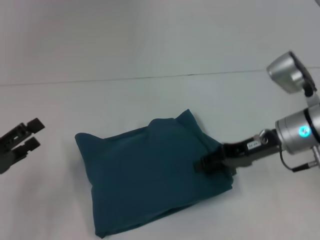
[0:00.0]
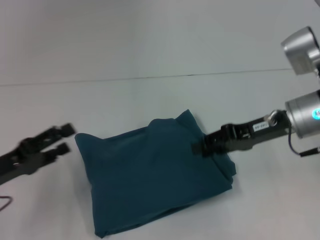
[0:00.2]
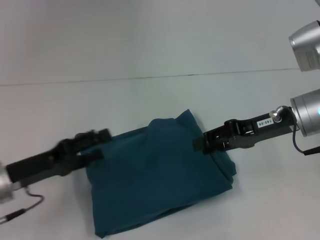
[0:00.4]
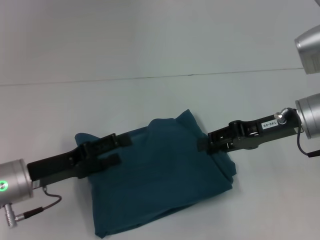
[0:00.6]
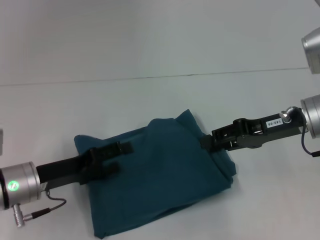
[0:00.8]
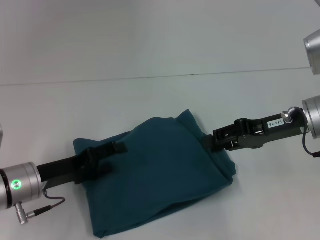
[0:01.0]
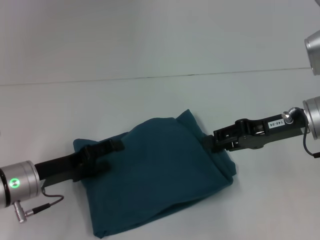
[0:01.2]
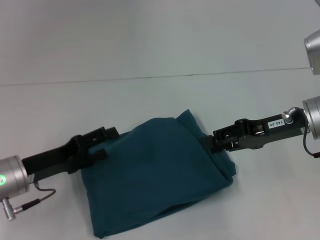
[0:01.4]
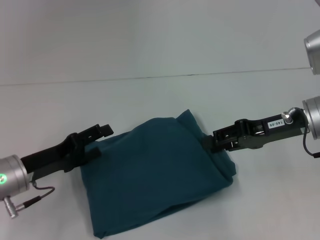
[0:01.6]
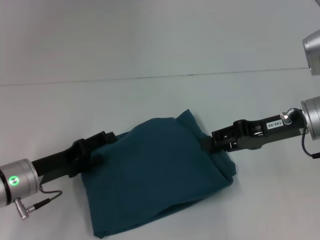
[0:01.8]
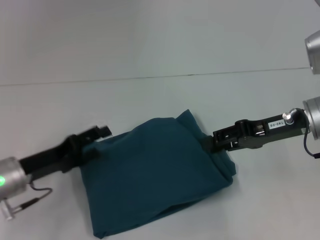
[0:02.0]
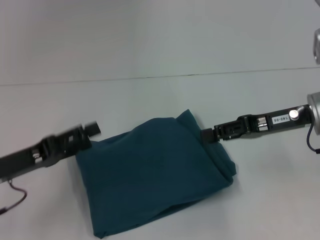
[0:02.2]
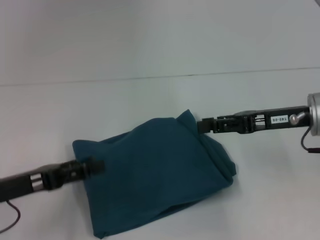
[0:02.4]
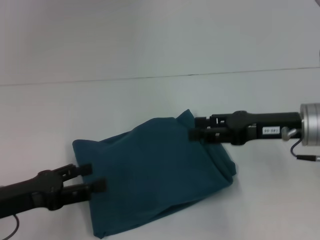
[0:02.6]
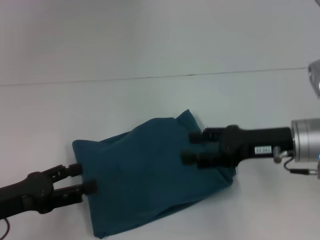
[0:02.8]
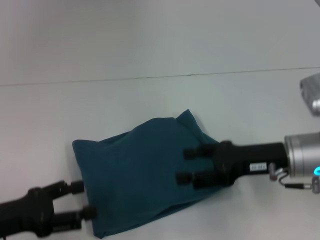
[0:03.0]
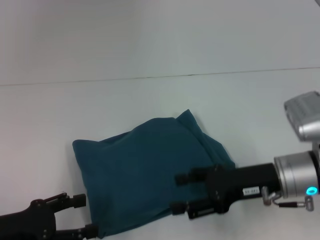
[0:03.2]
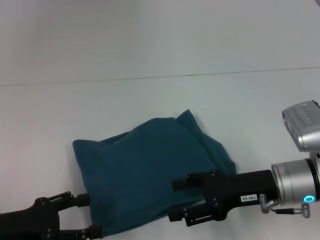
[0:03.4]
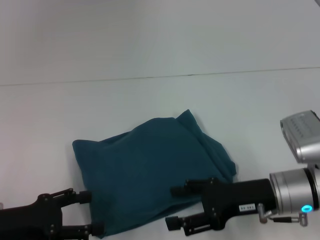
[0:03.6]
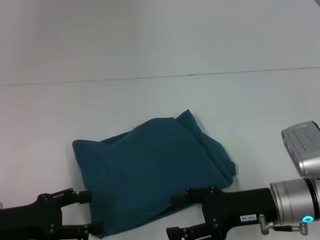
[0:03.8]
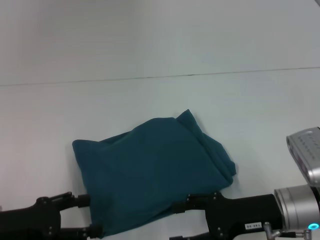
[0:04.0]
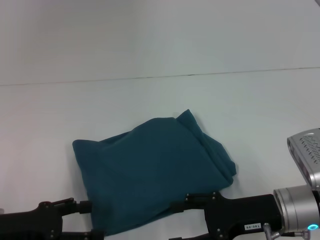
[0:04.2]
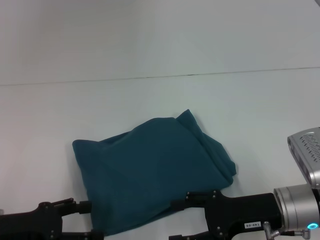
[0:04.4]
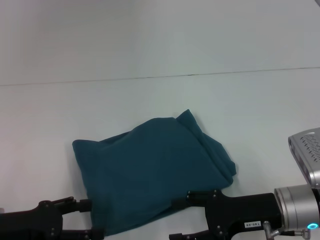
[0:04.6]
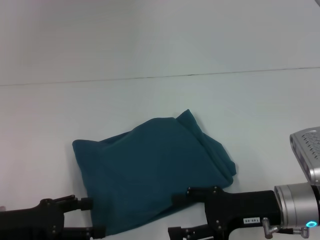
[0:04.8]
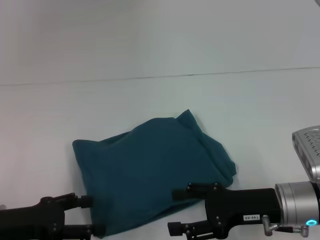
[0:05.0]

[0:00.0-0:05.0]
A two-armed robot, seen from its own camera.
0.0 to 1.6 s: The left gripper shifts approximately 10 cm to the right and forward.
1.6 to 3.4 s: The left gripper goes approximately 10 cm backward; the right gripper travels downward and backward by approximately 10 cm, and opens.
3.4 to 5.0 s: The grippers stay close to where they were, moving slightly.

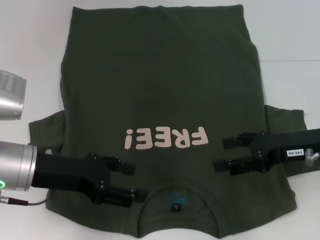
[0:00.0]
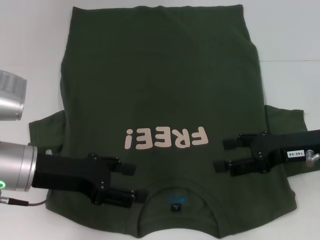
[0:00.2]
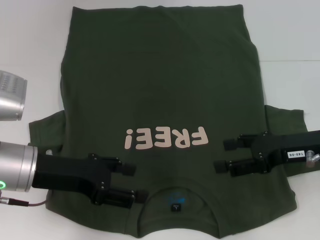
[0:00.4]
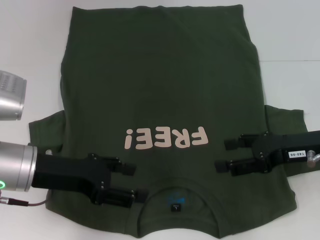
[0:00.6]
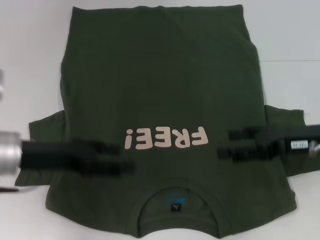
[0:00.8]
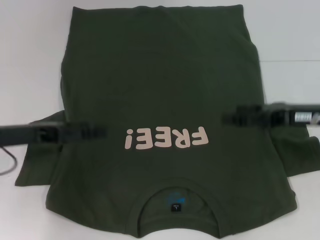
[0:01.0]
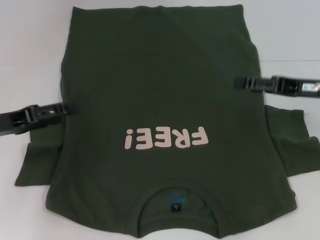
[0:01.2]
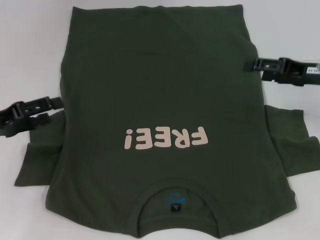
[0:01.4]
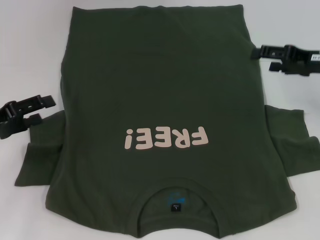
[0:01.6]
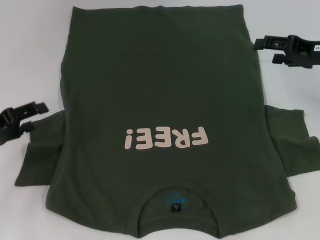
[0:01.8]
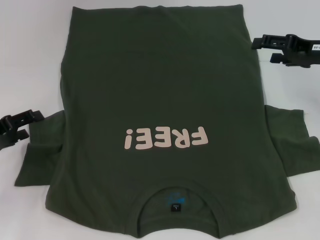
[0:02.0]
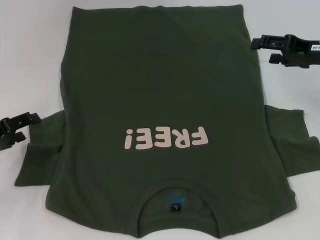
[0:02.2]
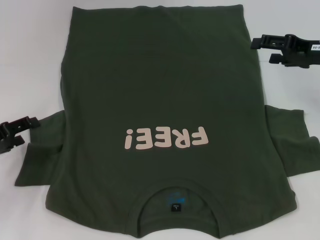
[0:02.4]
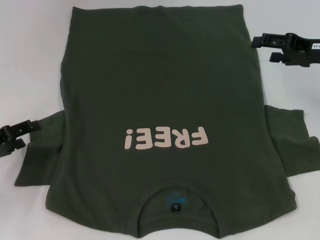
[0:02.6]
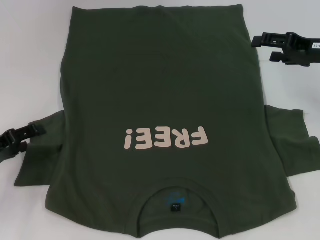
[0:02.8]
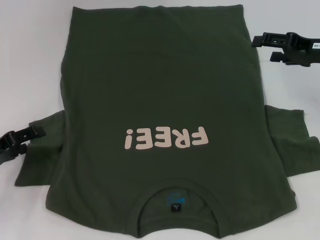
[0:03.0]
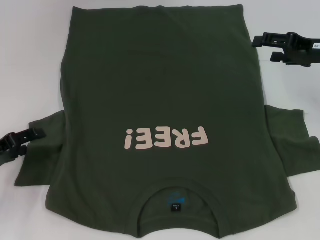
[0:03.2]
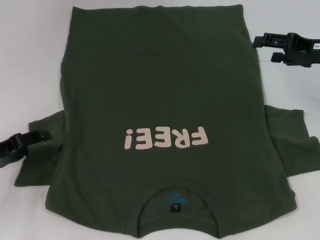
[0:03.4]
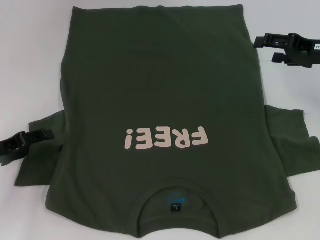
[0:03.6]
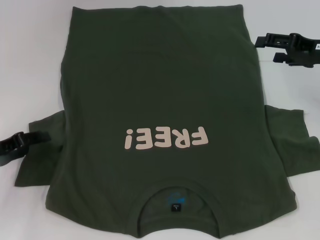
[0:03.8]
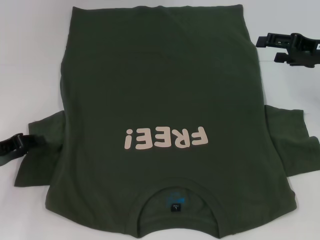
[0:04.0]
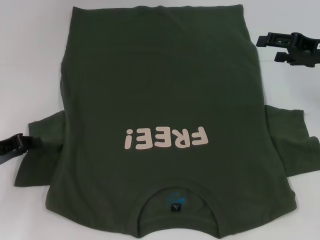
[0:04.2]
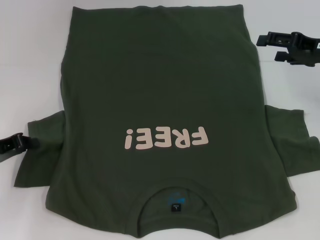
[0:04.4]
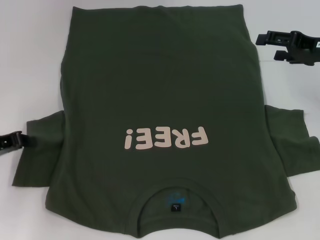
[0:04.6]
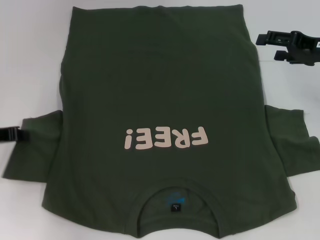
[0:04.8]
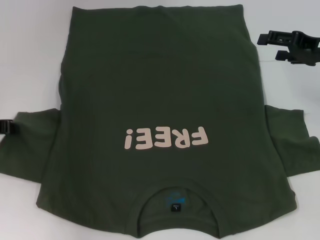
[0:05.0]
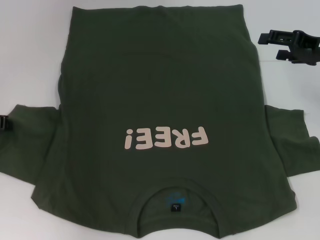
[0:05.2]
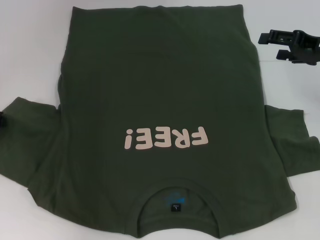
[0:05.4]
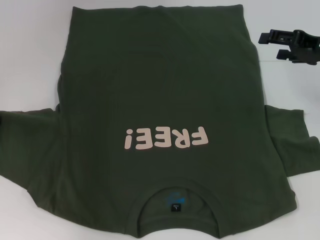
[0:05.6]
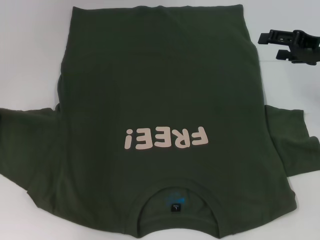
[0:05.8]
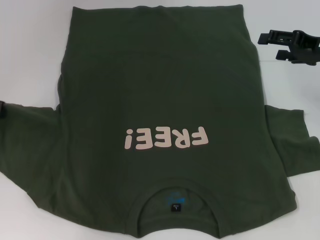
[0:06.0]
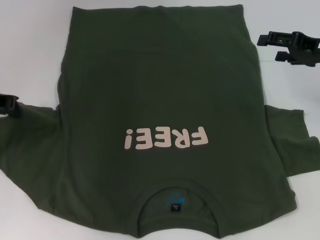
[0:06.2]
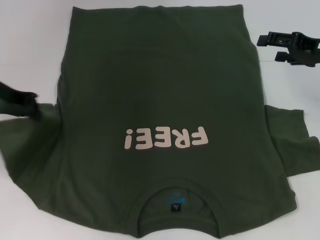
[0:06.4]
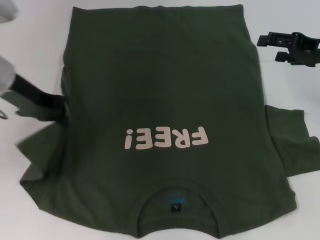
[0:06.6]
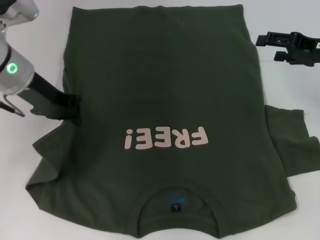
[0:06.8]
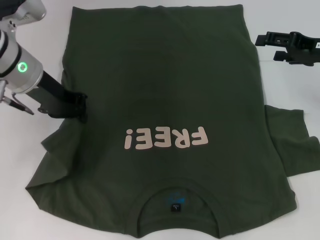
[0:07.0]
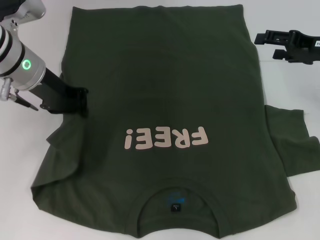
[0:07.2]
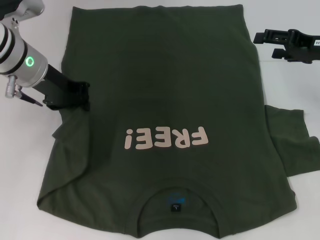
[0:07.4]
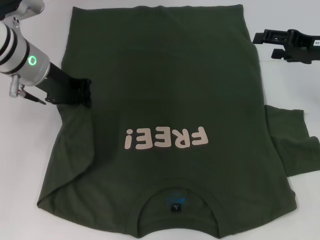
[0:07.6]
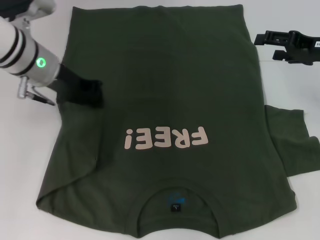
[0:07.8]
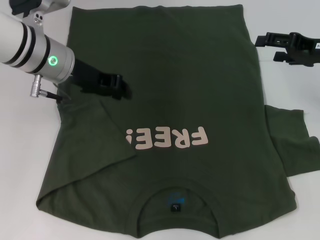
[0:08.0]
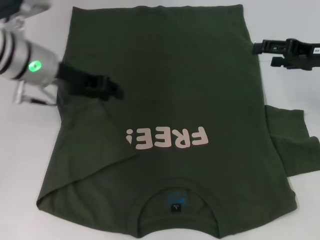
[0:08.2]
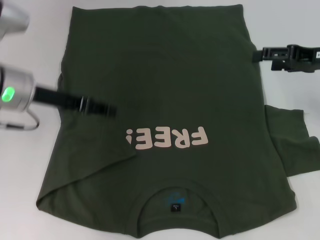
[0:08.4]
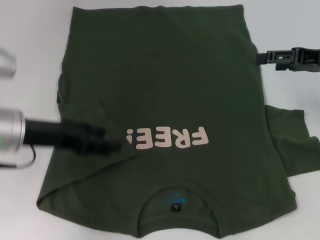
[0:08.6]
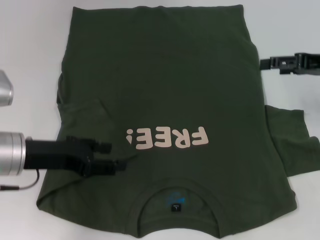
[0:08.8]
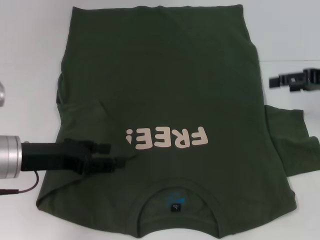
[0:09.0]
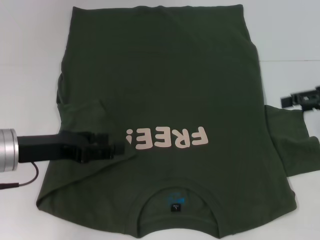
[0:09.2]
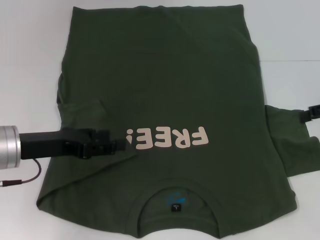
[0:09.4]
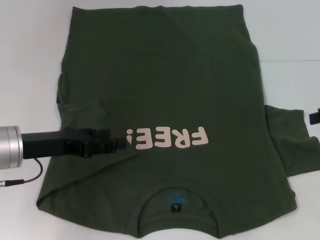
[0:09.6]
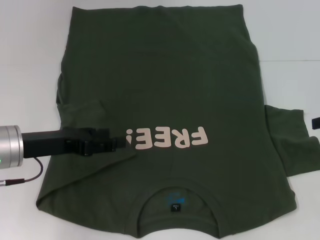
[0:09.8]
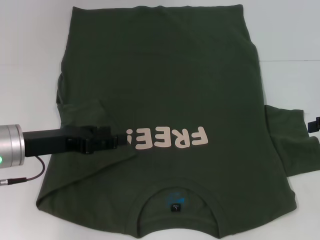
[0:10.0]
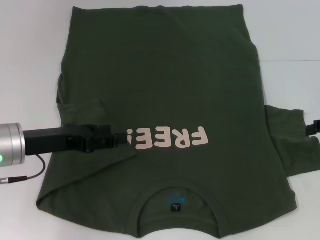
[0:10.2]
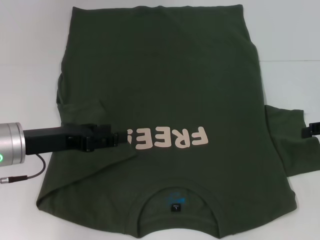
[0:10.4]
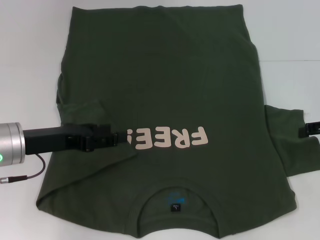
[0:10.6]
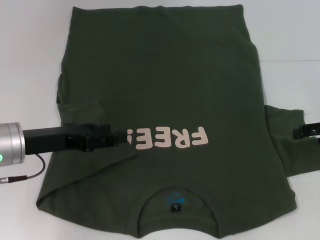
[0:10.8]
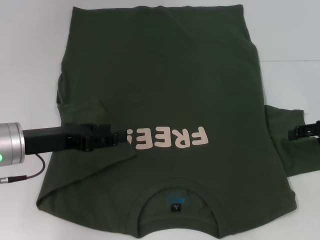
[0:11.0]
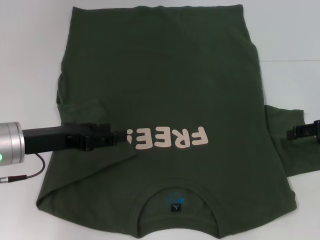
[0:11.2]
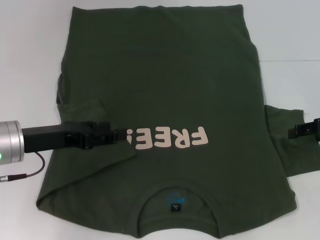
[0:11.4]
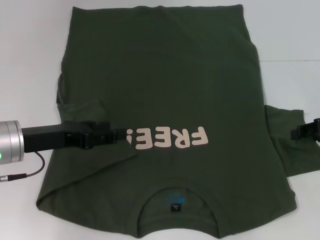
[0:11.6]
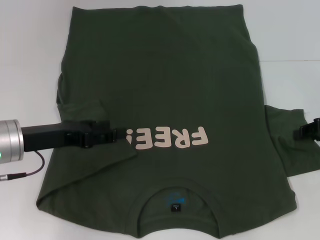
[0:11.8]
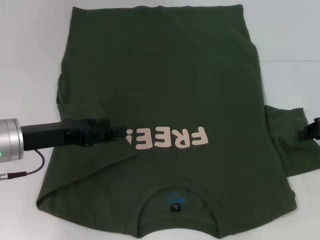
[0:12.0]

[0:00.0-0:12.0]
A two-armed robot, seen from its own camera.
Step, 0.0 to 8.0 s: Fold the bottom left sleeve with your left hand.
0.0 to 1.6 s: The right gripper travels forward by about 10 cm. The left gripper moves to the left, some 10 cm.
1.6 to 3.0 s: There are only small adjustments of the grippers.
3.0 to 4.4 s: The left gripper closes its fingers.
4.4 to 6.0 s: The left gripper is displaced upward and forward by approximately 10 cm.
6.0 to 7.6 s: The left gripper shifts some 15 cm to the right and forward.
7.6 to 9.0 s: The left gripper is displaced backward and downward by roughly 15 cm, and opens its fingers.
9.0 to 10.4 s: The right gripper shifts by approximately 5 cm.

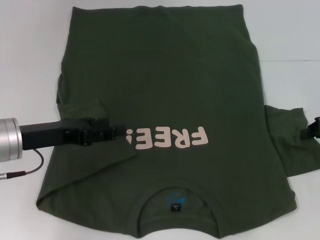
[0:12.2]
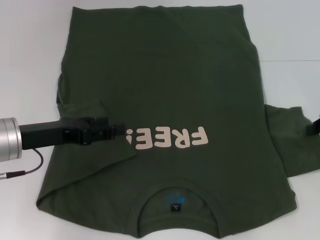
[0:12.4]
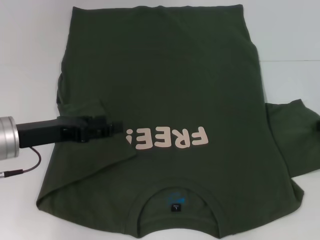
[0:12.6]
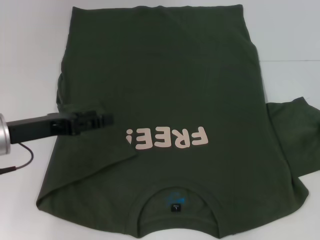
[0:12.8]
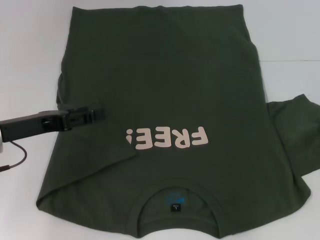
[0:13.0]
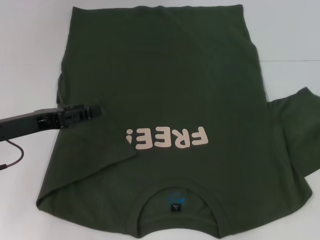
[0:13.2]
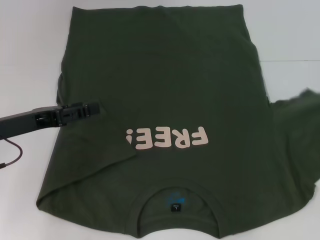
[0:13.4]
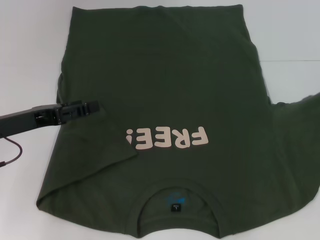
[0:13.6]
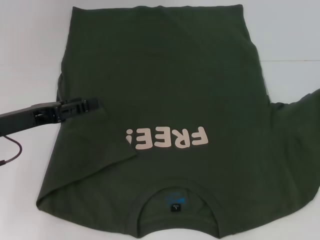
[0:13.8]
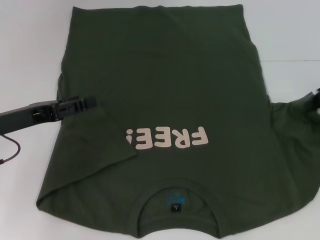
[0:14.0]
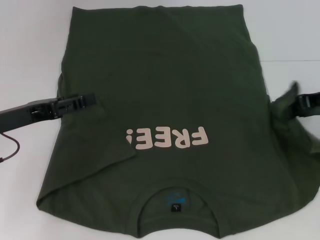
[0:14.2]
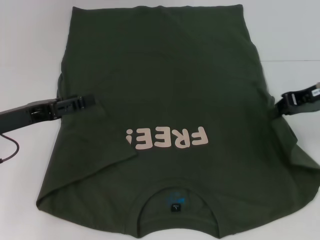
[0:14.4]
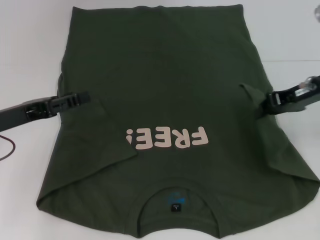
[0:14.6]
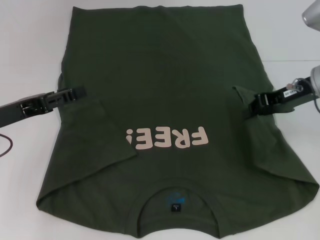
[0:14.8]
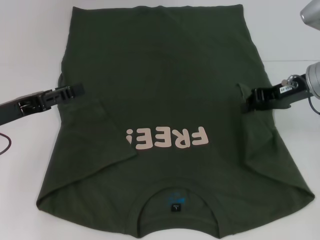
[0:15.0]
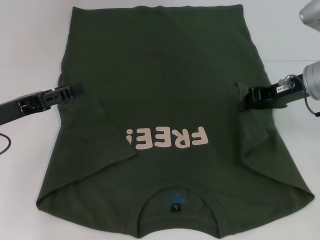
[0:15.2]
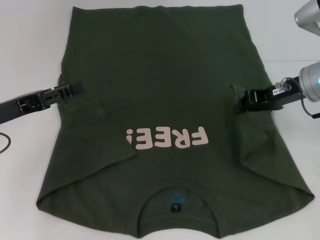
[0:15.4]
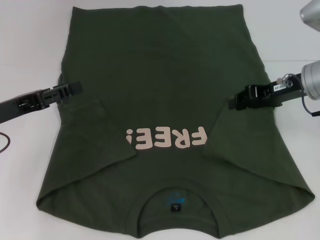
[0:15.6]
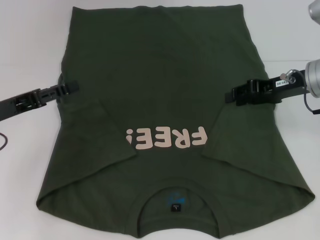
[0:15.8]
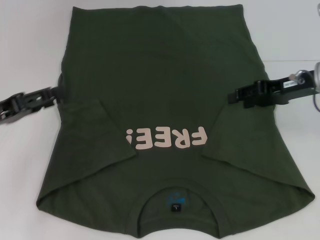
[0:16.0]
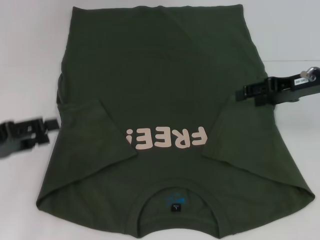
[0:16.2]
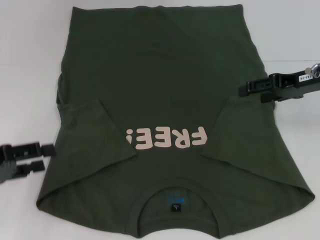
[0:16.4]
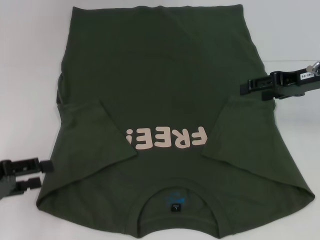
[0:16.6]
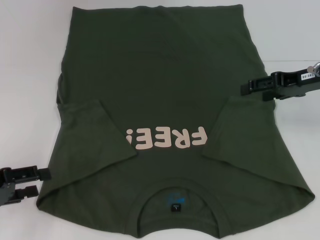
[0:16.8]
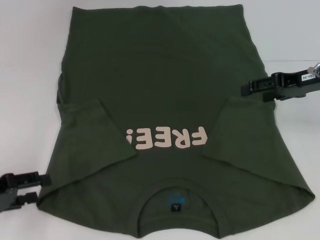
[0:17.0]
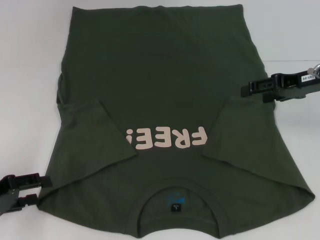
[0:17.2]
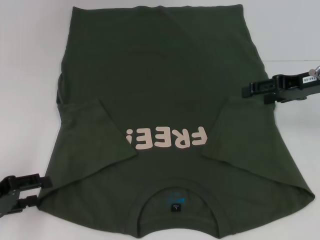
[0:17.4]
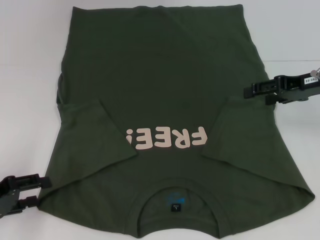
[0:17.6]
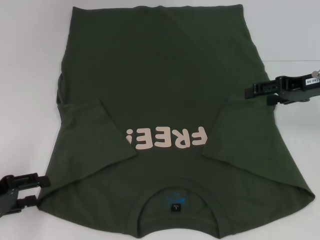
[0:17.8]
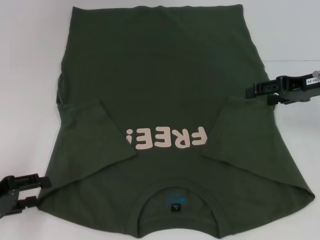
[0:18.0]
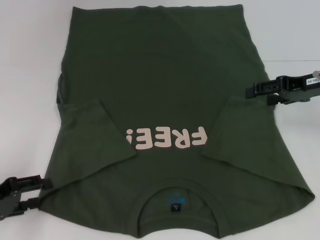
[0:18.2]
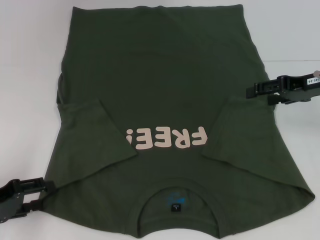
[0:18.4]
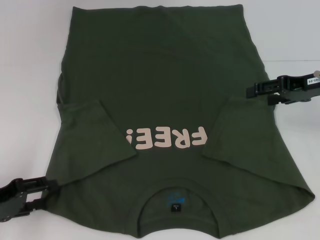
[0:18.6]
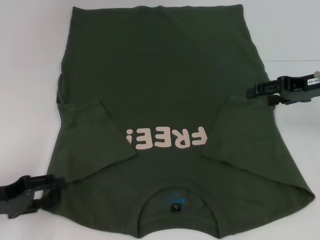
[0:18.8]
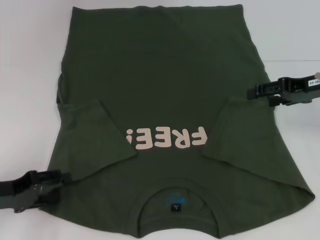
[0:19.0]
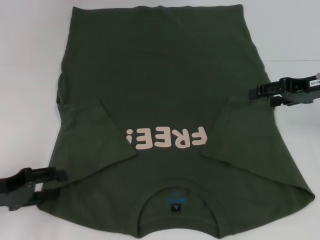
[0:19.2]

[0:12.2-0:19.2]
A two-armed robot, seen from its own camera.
Step, 12.2 to 15.6 s: Fold the bottom right sleeve with your right hand.
12.2 to 13.6 s: The right gripper shifts by approximately 5 cm.
13.6 to 15.0 s: The right gripper shifts approximately 15 cm to the left.
15.0 to 16.4 s: The left gripper heads backward, covering some 5 cm. Meanwhile the right gripper opens up.
16.4 to 17.8 s: The left gripper is displaced downward by roughly 5 cm.
17.8 to 19.2 s: The grippers move only a little.
